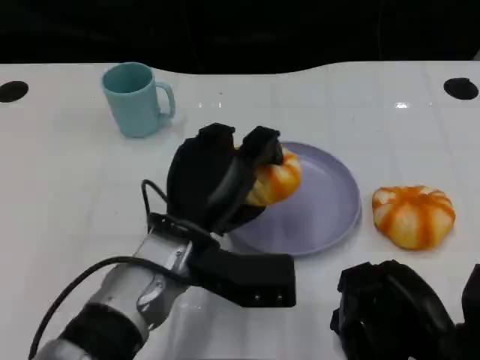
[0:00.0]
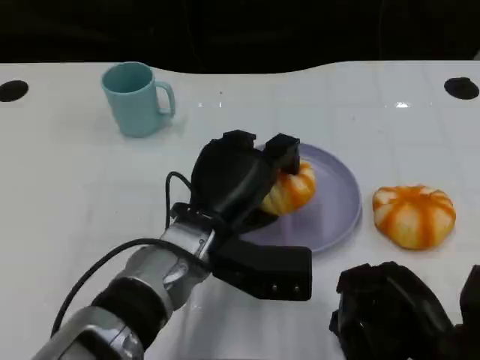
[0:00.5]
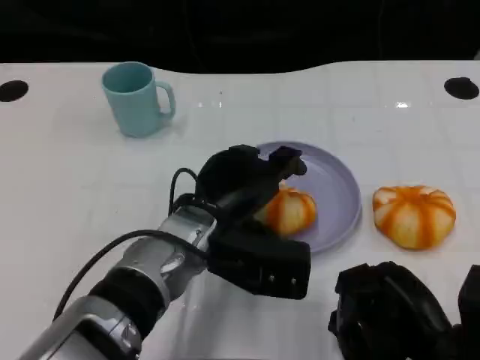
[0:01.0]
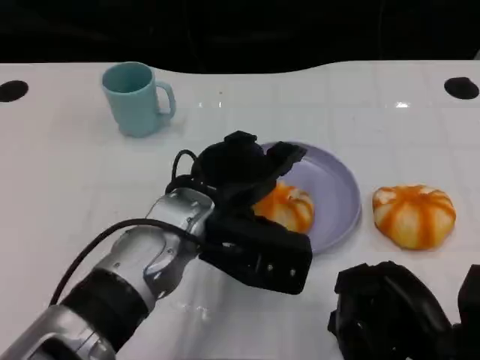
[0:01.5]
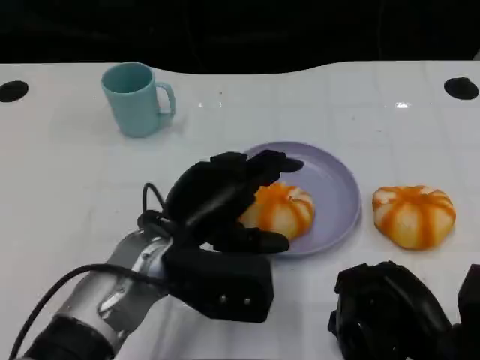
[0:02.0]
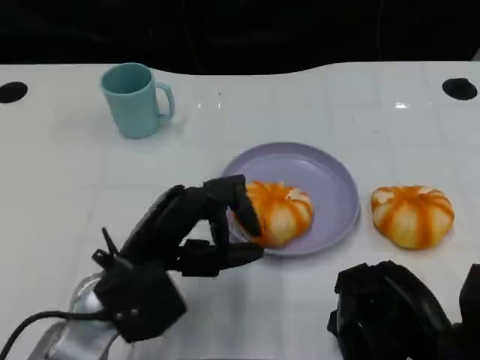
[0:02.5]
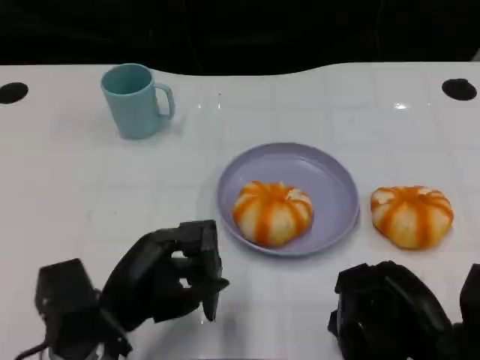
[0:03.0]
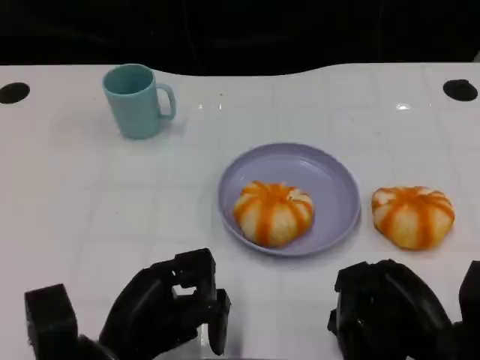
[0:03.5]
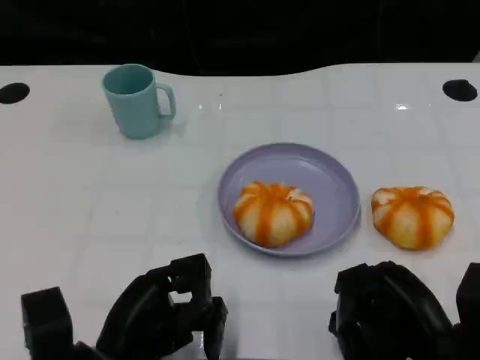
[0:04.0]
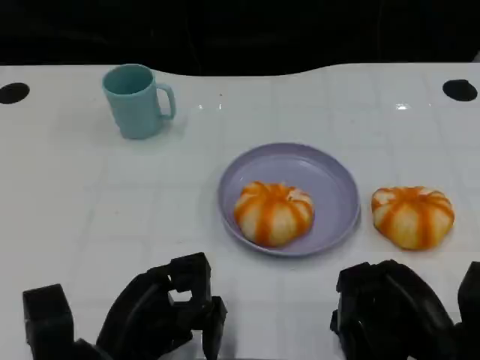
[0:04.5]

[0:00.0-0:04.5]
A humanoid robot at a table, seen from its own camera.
Task of the whole recording: Grasp the bread from the table and place it into the plate.
0:02.0 to 0:04.5: The left hand travels backward, downward and to the left by some 15 cm.
